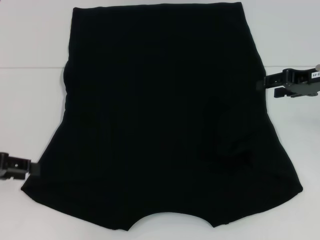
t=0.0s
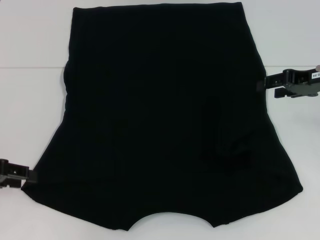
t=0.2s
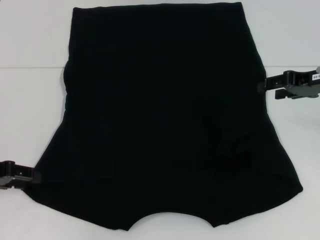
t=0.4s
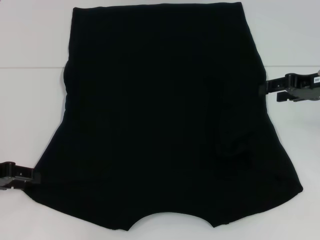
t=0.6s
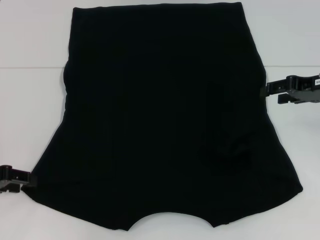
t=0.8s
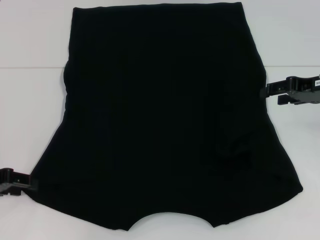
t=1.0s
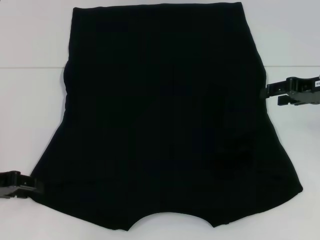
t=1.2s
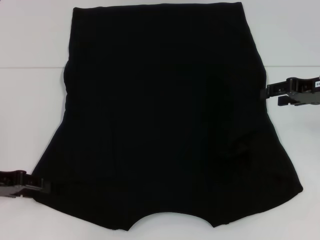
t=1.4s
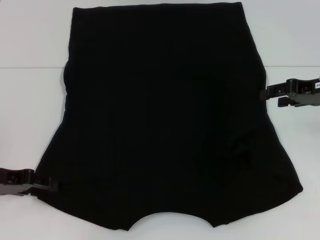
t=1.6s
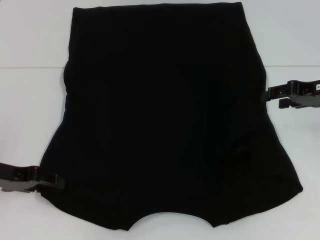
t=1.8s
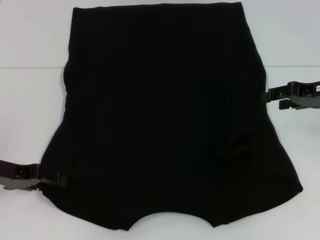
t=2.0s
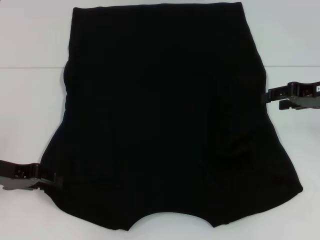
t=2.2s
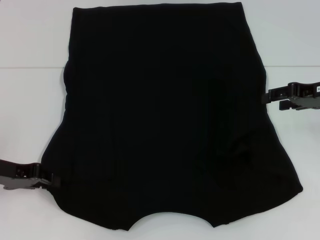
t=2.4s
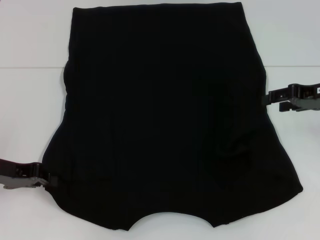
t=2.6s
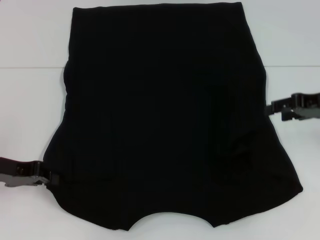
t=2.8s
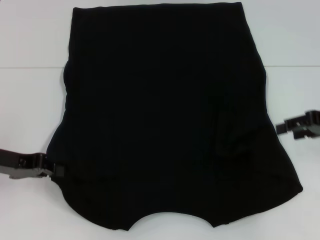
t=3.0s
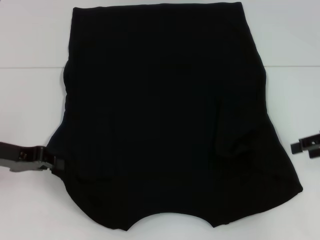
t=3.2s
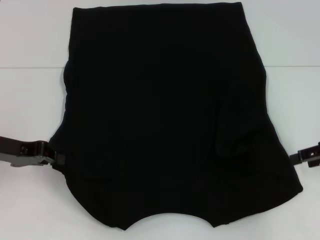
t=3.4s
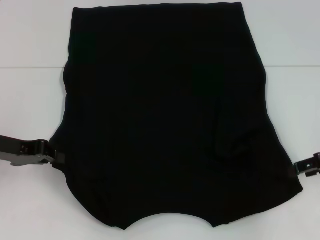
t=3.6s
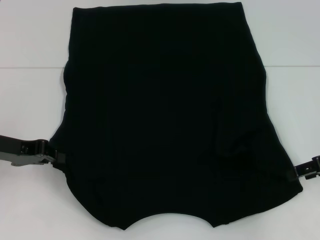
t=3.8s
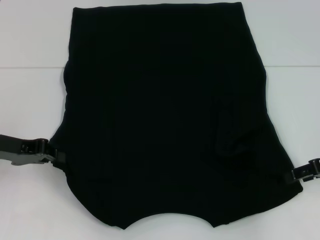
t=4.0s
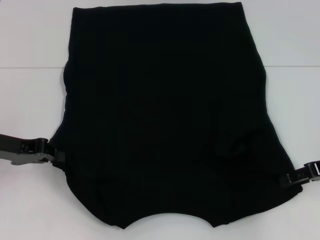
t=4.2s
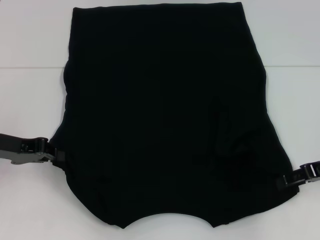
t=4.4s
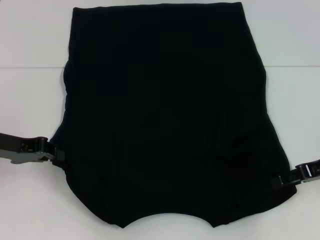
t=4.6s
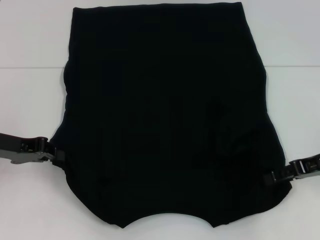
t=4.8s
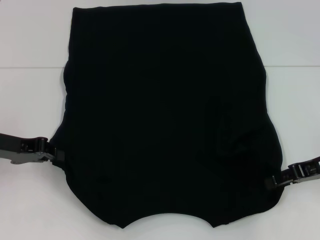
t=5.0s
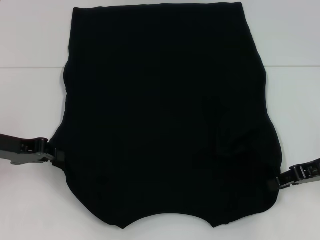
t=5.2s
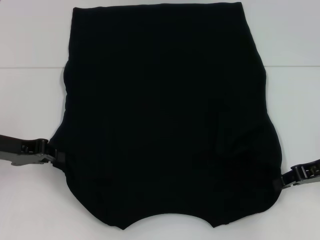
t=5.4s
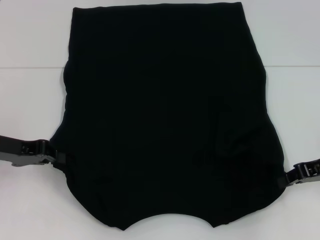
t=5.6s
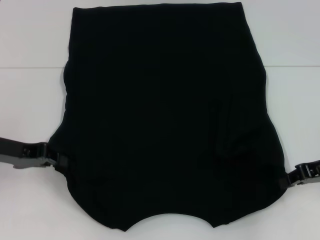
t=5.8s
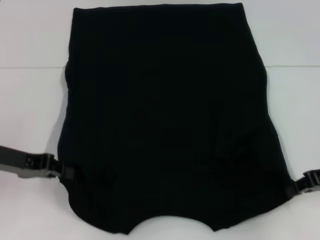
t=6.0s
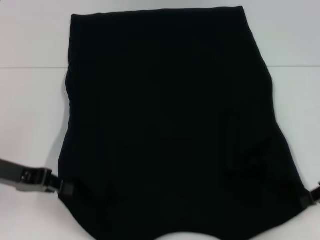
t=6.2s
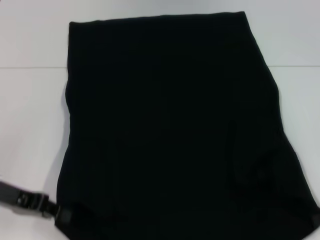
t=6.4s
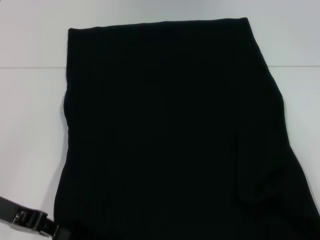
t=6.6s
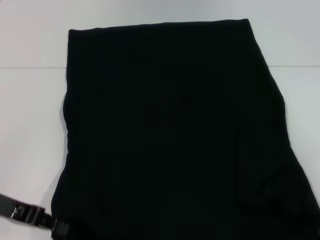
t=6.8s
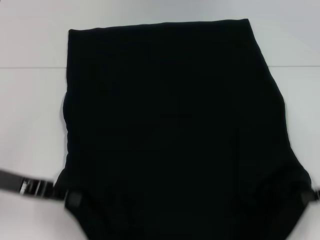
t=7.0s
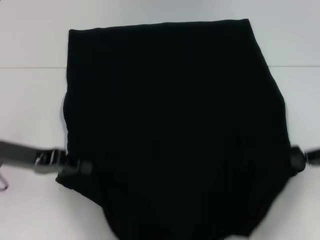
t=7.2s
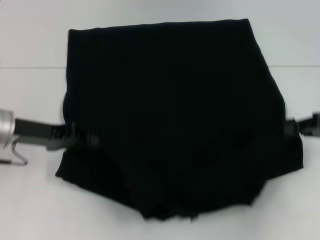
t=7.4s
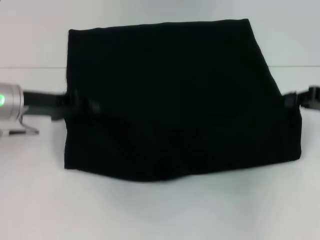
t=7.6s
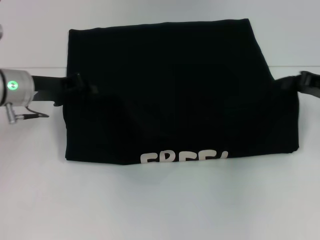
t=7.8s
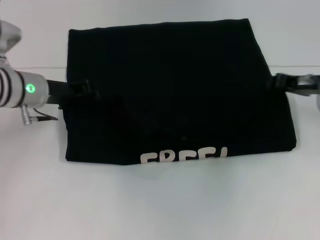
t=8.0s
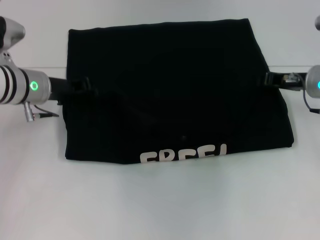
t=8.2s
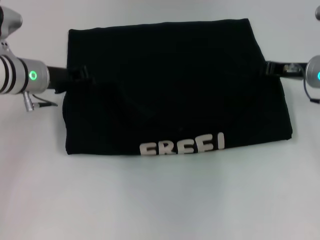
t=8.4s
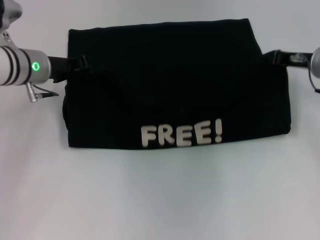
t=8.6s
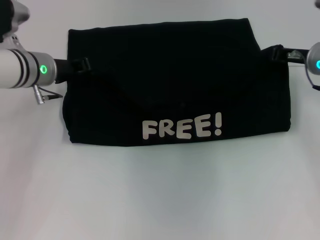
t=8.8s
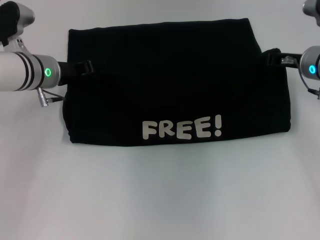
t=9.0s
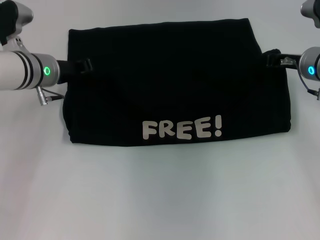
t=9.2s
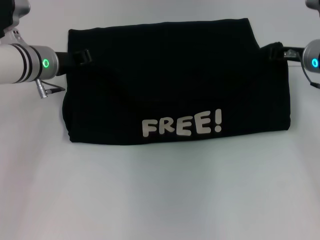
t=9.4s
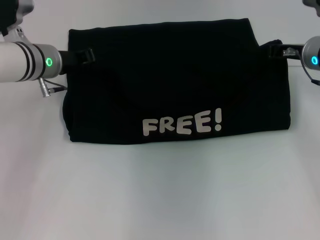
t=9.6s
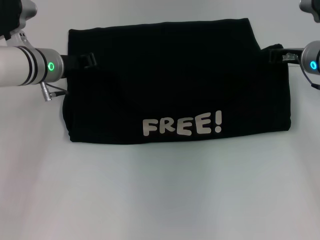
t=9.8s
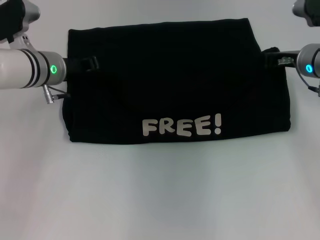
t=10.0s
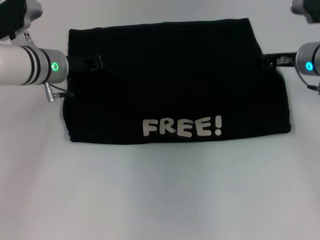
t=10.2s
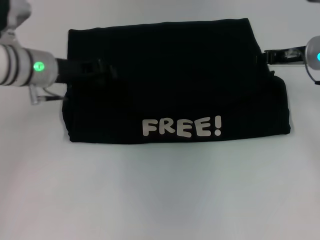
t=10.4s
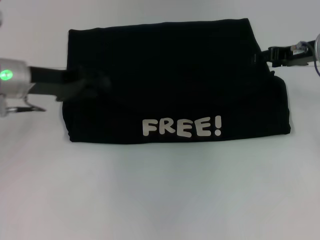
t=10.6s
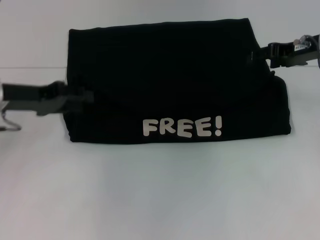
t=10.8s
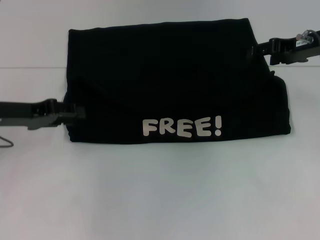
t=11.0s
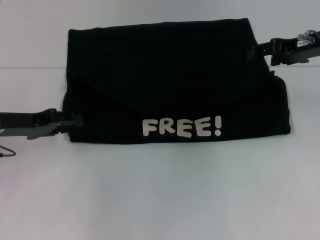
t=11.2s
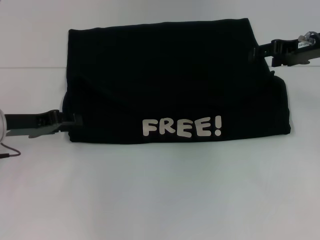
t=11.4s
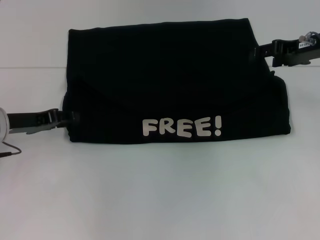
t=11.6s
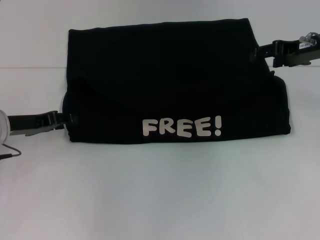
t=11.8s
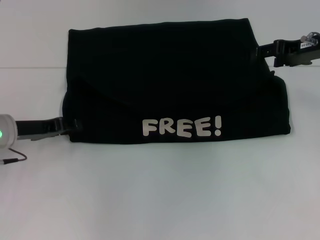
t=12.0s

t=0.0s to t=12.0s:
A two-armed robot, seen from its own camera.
Step, t=0.0s to t=2.8s: Grab the bottom left corner with your left hand.
Step, t=3.0s to t=5.2s: Grab the bottom right corner with your right hand.
Step, t=5.4s to t=11.0s: Fold the clothes with your left hand.
Step, t=5.4s to t=11.0s: Fold the clothes with your right hand.
t=0.0s to t=1.6s: The left gripper ends up some 5 cm from where it was.
t=1.6s to t=3.0s: The left gripper closes its fingers.
t=3.0s to t=4.4s: The right gripper changes place by about 5 cm.
t=4.4s to t=6.0s: The right gripper closes up.
t=6.0s to t=7.6s: The left gripper travels forward by about 5 cm.
t=7.6s to t=9.0s: The right gripper goes about 10 cm to the left and forward; the left gripper moves forward, approximately 5 cm.
t=9.0s to t=10.4s: The grippers move only a little.
t=10.4s to t=12.0s: The left gripper heads downward, backward and to the left, covering some 10 cm, while the right gripper opens.

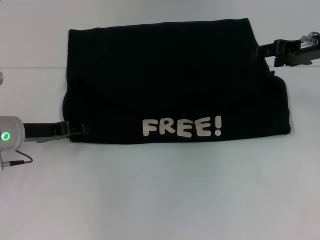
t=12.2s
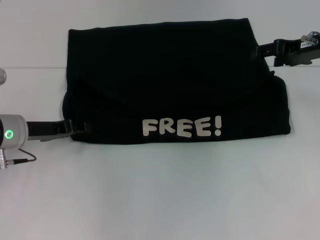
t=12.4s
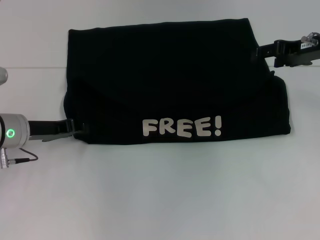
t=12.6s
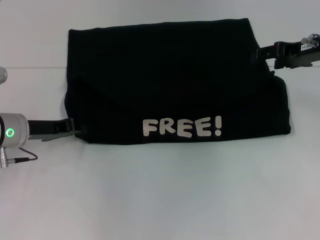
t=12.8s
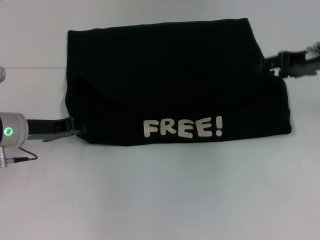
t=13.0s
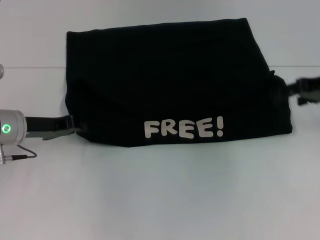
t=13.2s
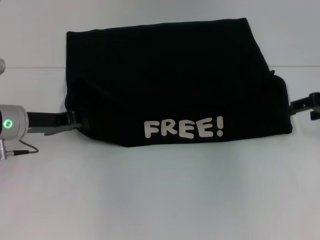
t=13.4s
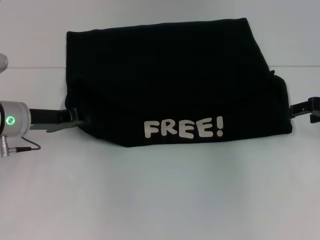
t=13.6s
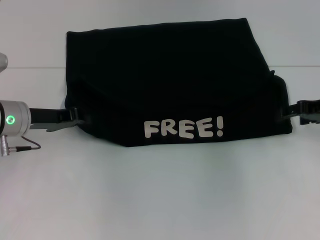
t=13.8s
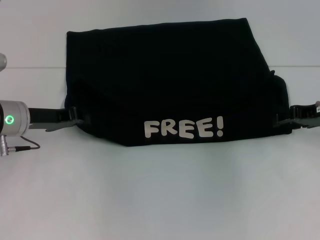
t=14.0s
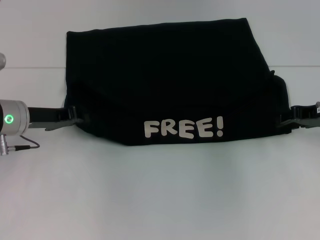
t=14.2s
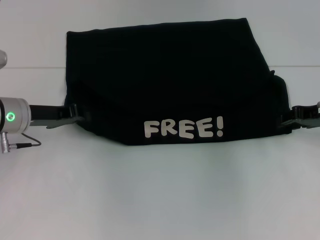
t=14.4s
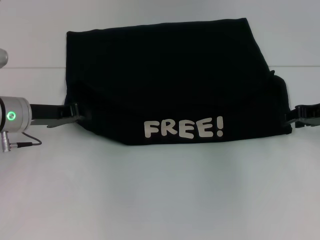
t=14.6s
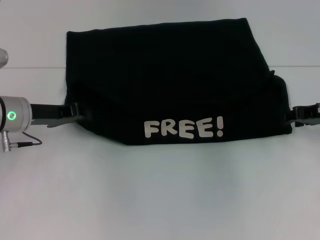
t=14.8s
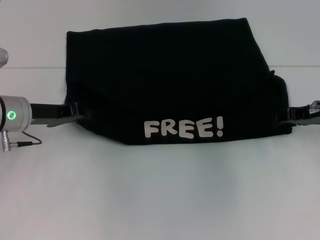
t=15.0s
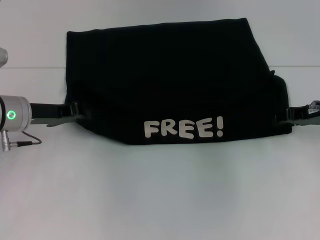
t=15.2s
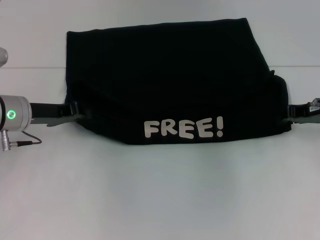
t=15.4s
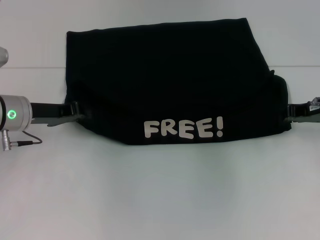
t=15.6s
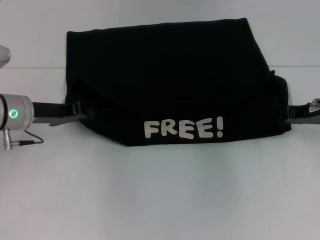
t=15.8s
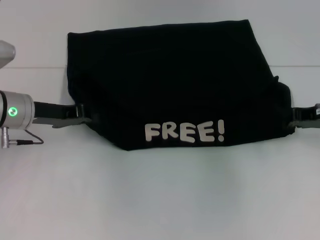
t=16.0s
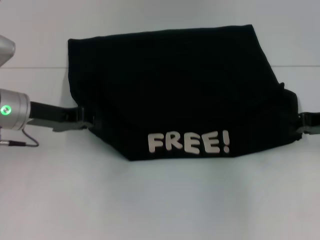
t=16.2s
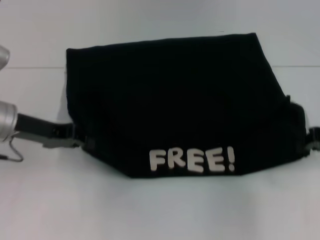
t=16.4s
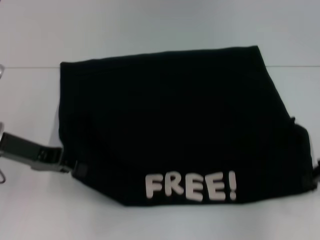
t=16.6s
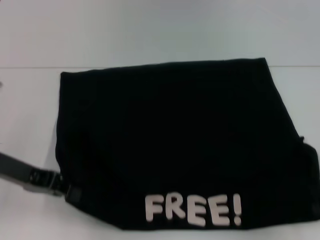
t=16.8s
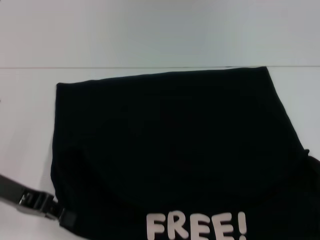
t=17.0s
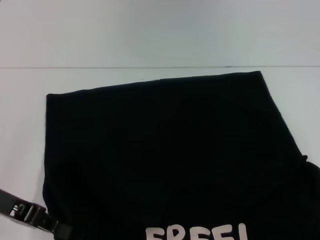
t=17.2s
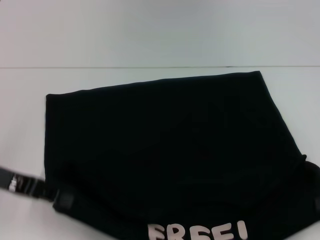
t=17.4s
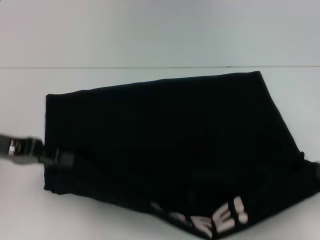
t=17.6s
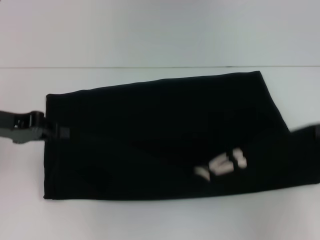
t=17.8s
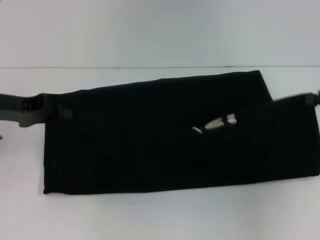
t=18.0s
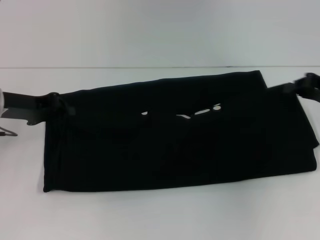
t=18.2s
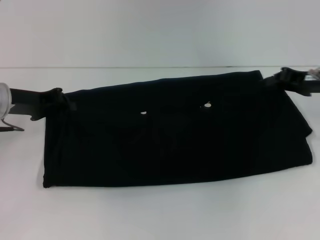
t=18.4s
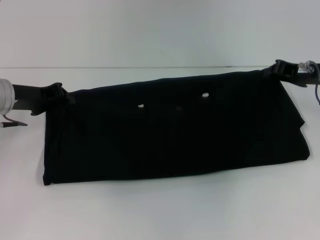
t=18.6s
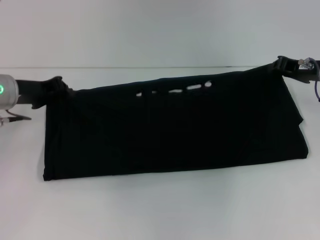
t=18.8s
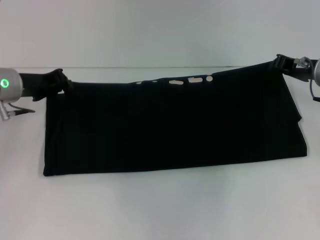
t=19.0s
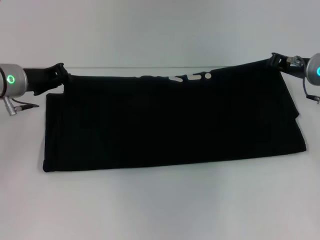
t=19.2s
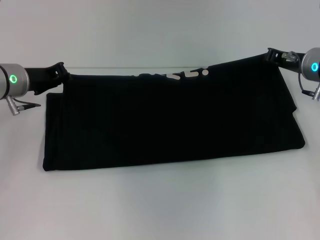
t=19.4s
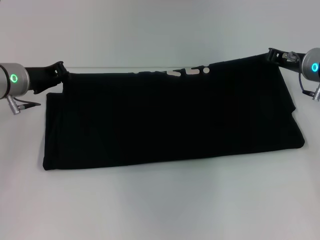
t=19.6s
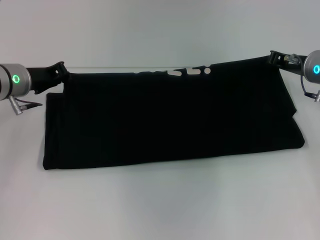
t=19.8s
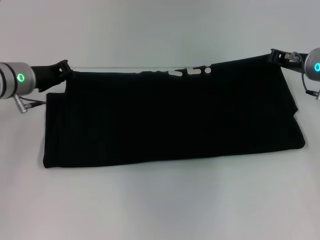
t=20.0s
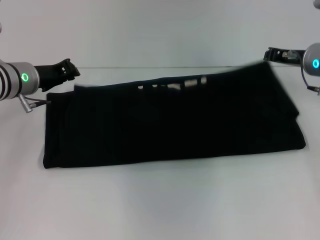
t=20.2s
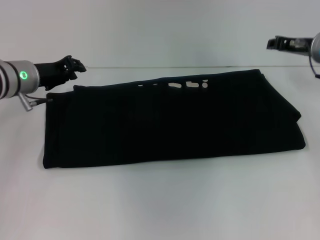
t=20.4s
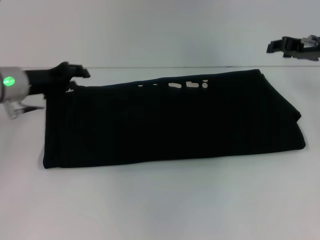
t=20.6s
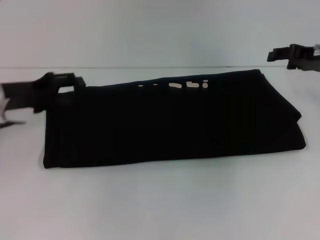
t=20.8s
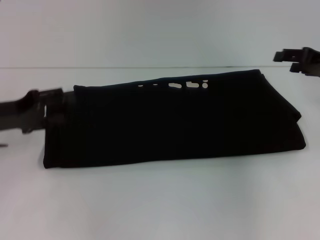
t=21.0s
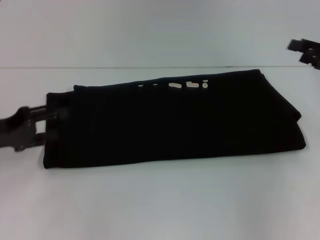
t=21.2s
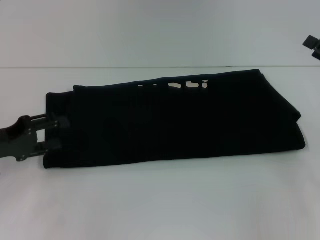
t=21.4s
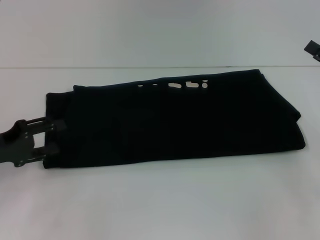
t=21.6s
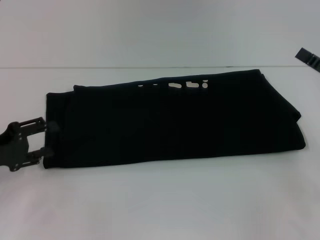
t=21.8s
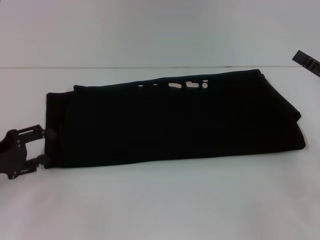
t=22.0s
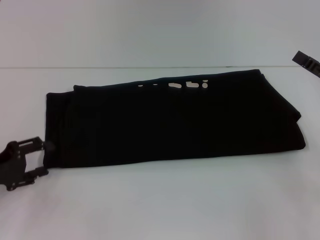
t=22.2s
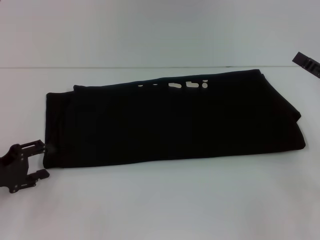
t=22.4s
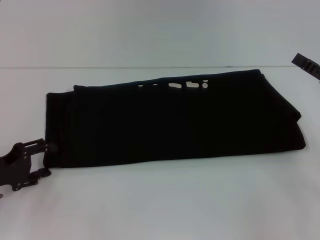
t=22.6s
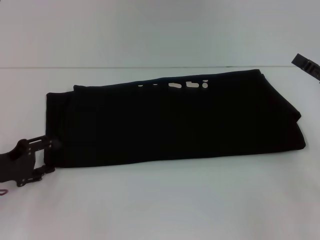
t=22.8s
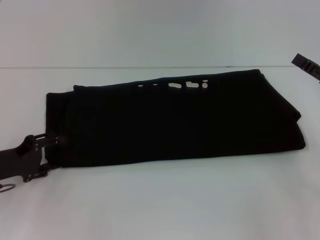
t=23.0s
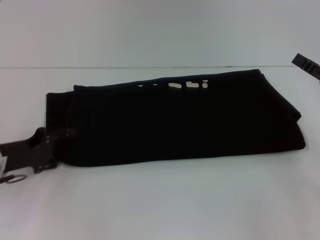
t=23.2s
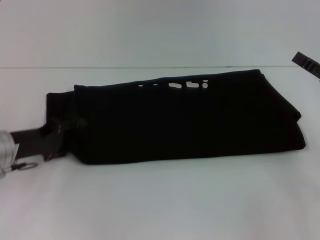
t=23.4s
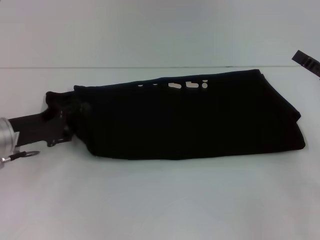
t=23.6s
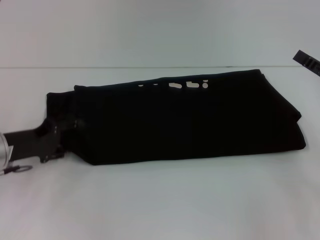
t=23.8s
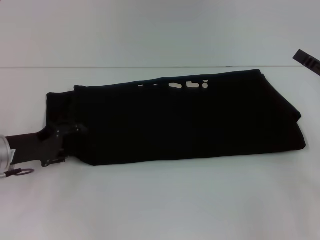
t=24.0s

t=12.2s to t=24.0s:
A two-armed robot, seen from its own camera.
Step, t=12.2s to t=17.0s: Pull the clothes with your left hand.
Step, t=12.2s to t=17.0s: Pull the clothes with your right hand.
Step, t=17.2s to t=21.0s: Fold the clothes with your right hand.
t=12.2s to t=13.6s: The left gripper closes up, while the right gripper travels to the right by approximately 5 cm.
t=13.6s to t=15.2s: The right gripper ends up about 5 cm from where it was, and closes.
t=15.2s to t=16.6s: The right gripper moves backward, some 10 cm, and closes; the left gripper ends up about 5 cm from where it was.
t=16.6s to t=18.2s: The right gripper moves forward, approximately 5 cm.
t=18.2s to t=19.6s: The left gripper changes place by roughly 5 cm. Meanwhile the right gripper travels to the left and forward by approximately 10 cm.
t=19.6s to t=21.0s: The left gripper goes some 10 cm backward and to the left, and opens its fingers. The right gripper is displaced to the right by about 5 cm, and opens its fingers.
t=21.0s to t=22.6s: The left gripper shifts some 10 cm downward and backward; the right gripper goes some 10 cm backward and downward.
t=22.6s to t=24.0s: The left gripper shifts by roughly 5 cm.
